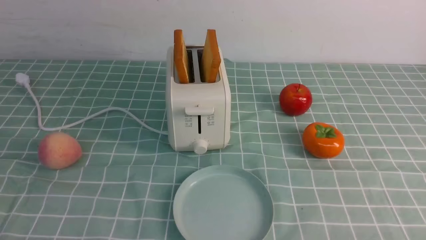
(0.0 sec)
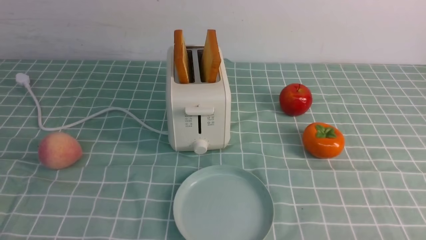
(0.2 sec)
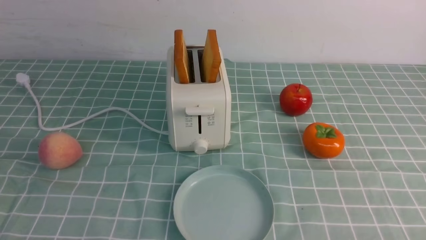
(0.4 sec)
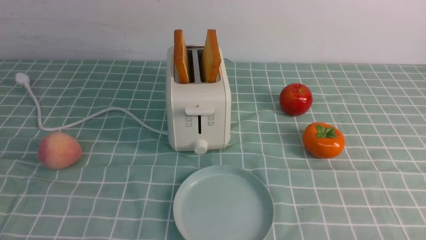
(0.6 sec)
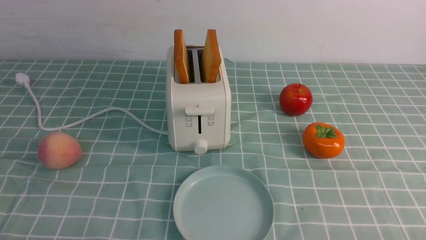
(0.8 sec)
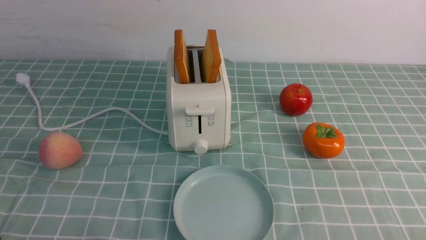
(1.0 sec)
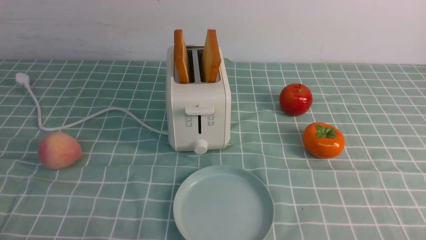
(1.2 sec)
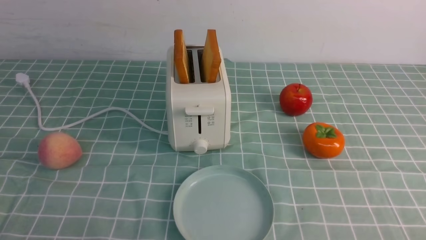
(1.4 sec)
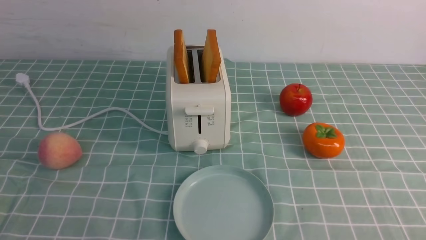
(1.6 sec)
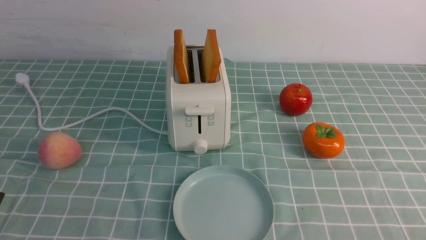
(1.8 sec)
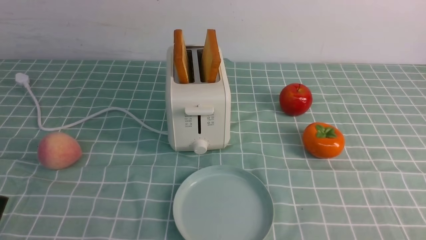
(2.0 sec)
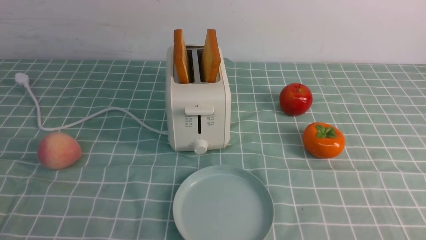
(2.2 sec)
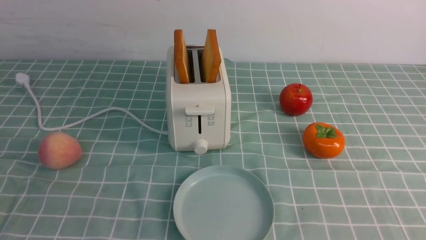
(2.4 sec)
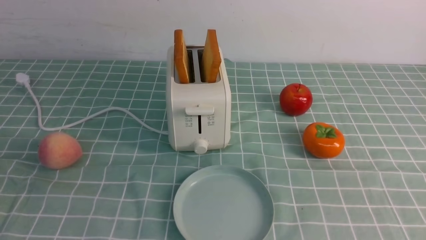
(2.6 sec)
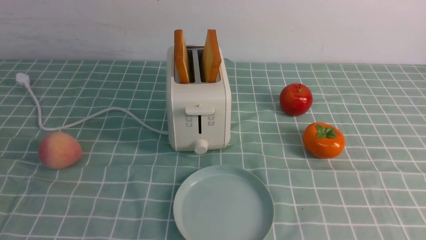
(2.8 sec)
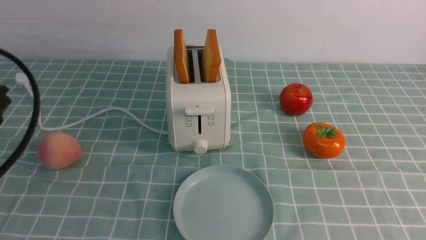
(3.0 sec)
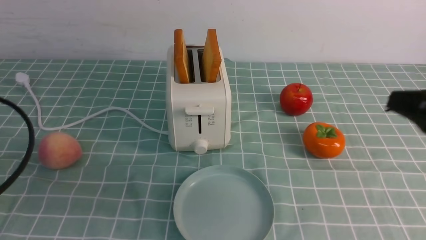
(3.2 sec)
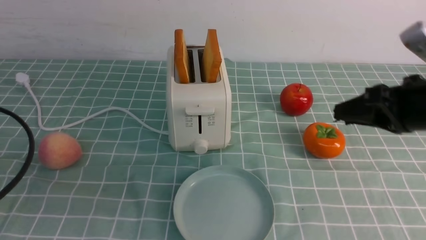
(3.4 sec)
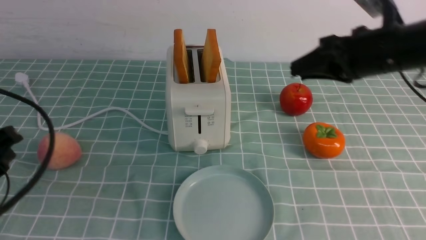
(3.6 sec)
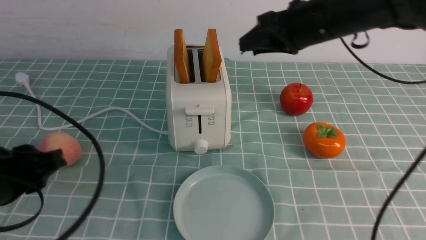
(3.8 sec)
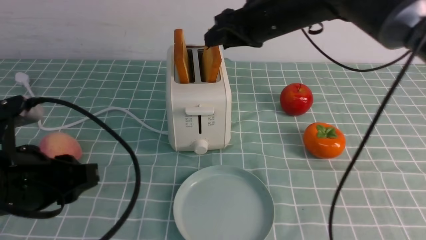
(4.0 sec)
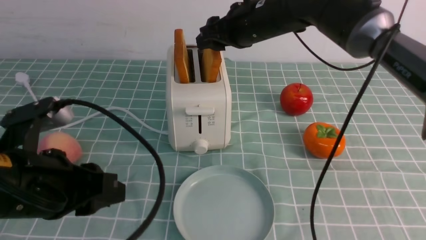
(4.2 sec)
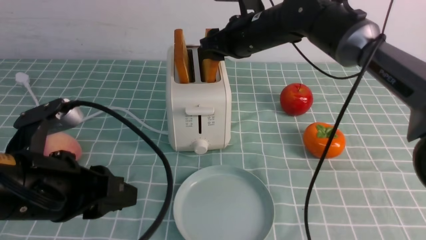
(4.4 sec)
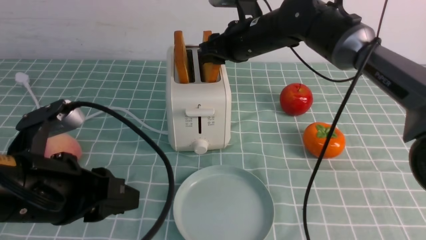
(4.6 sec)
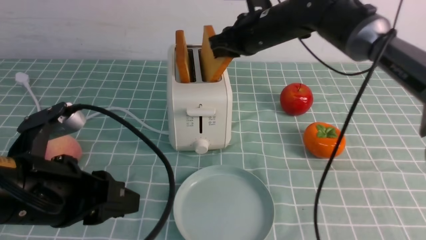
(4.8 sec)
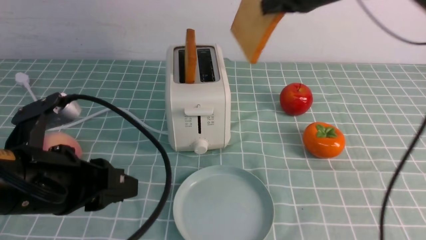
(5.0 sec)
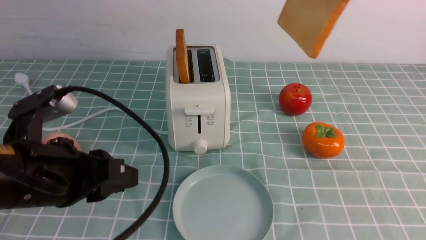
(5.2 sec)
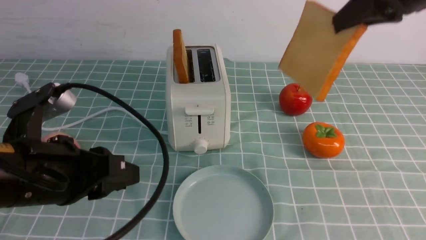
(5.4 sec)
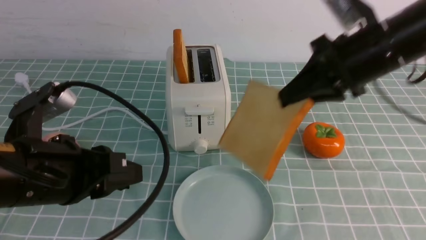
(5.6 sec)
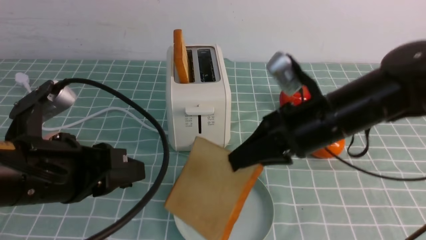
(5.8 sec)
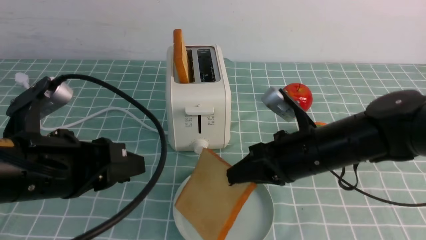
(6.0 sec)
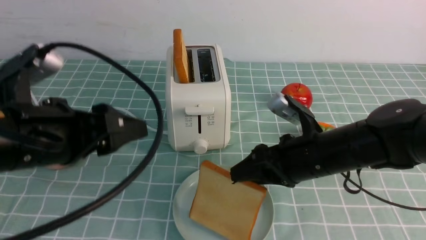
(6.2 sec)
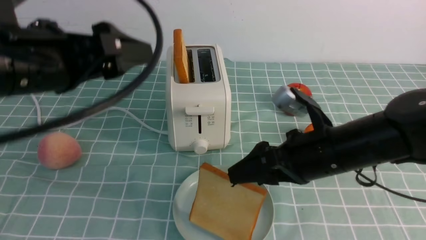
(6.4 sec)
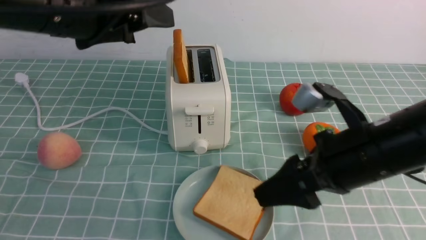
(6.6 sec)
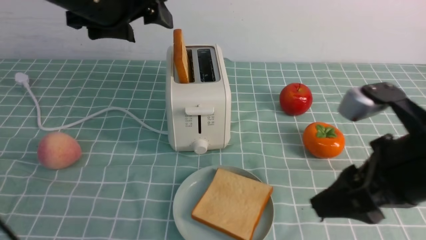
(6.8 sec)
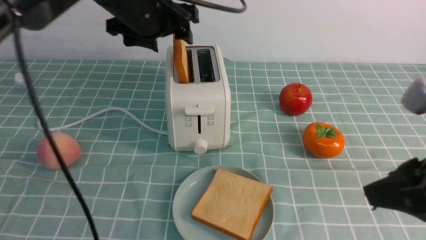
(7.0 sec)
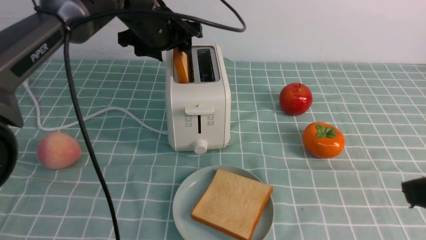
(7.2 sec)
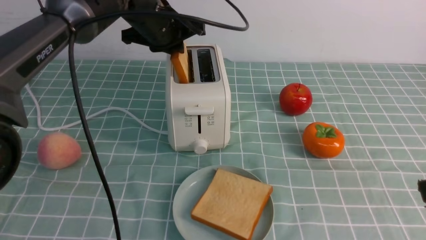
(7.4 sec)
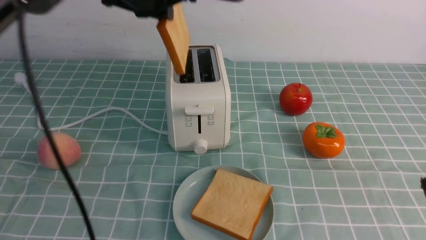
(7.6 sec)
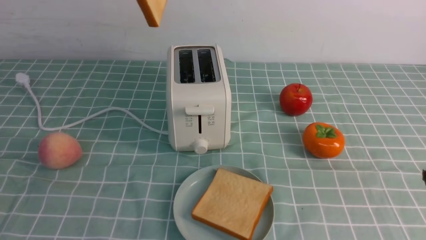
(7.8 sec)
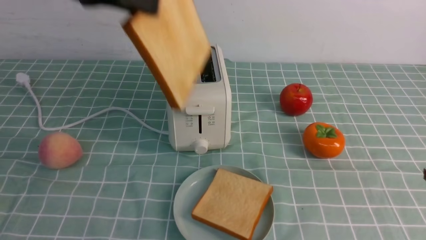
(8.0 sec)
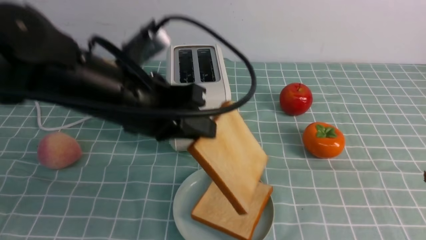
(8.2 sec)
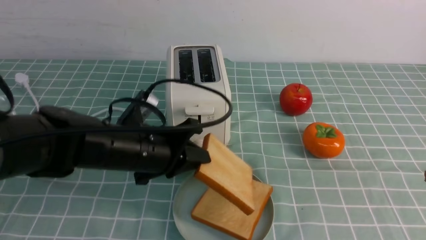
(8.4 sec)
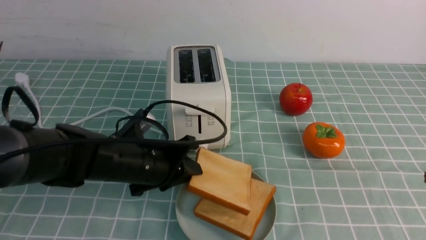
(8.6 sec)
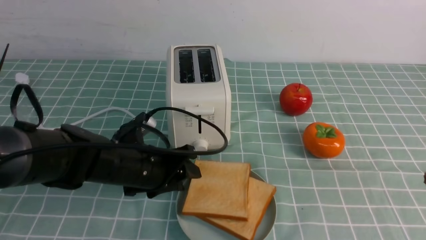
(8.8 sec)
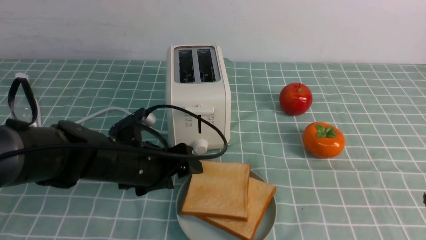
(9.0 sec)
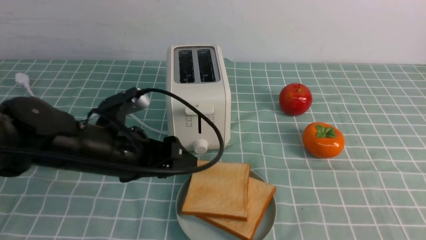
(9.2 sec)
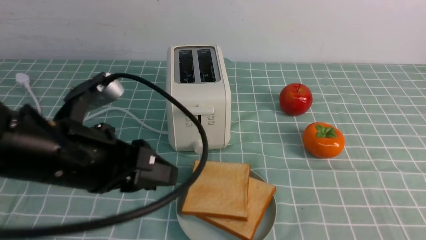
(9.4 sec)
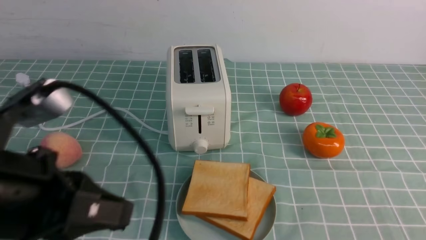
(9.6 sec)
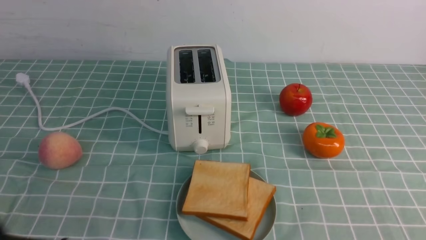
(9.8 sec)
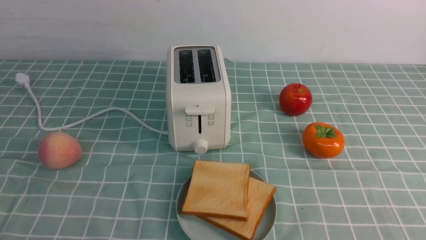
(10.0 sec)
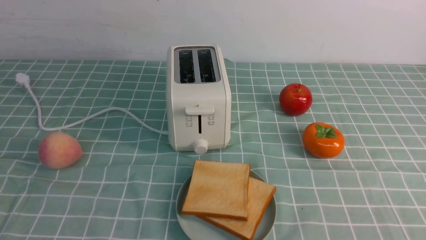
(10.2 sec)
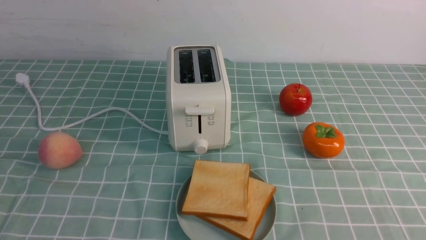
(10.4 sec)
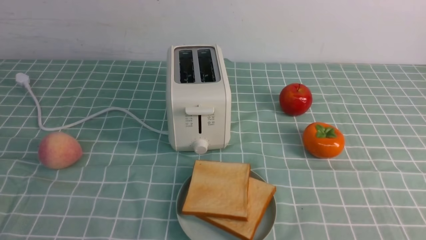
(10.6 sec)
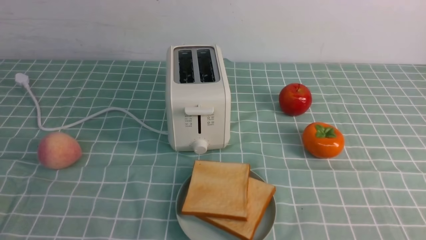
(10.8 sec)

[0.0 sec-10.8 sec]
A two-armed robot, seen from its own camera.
Task of the whole recording: take toasted bread from bread machine on blue coffee table place on plate.
Step, 0.0 sec to 5.0 sec: use the right arm to take out a slice of bread.
Step, 5.2 sec to 6.4 sec: use the right arm to put a slice of bread into the plate.
Step, 6.6 sec to 7.6 sec: use the left arm to take out a slice of bread.
Step, 7.8 sec to 9.0 sec: use the left arm to put a slice of bread into the empty plate.
1.6 sec to 3.0 sec: The left gripper travels forward and upward by approximately 15 cm.
3.0 sec to 4.6 sec: The right gripper is displaced forward and to the left by approximately 35 cm; the left gripper goes some 10 cm to the right.
4.6 sec to 6.2 sec: The left gripper heads upward, covering some 5 cm, and opens. The right gripper is displaced backward and downward by about 20 cm.
6.2 sec to 7.8 sec: The right gripper is displaced backward, upward and to the right by some 25 cm; the left gripper heads upward and forward, covering roughly 20 cm, and closes its fingers.
7.8 sec to 9.2 sec: The left gripper is displaced downward by roughly 20 cm, and opens up; the right gripper is displaced downward by about 5 cm, and closes.
9.2 sec to 10.8 sec: The right gripper moves downward, some 5 cm, while the left gripper shifts about 25 cm backward and to the left, and closes up.
